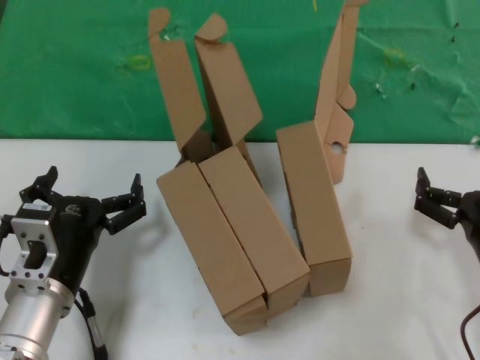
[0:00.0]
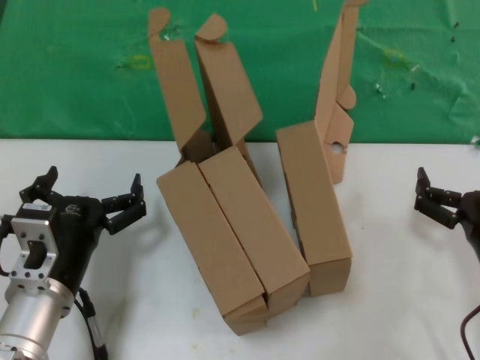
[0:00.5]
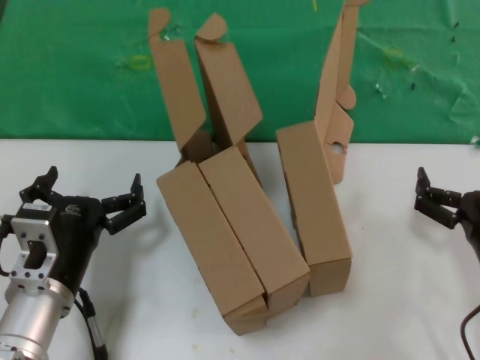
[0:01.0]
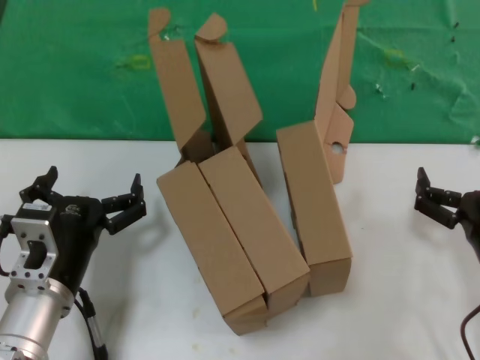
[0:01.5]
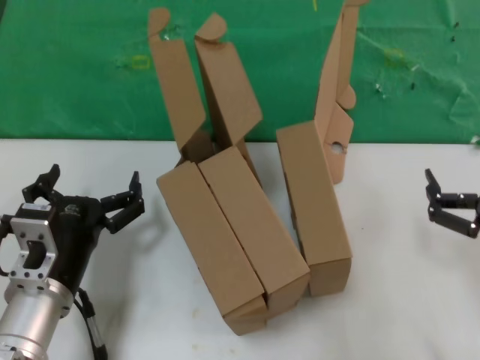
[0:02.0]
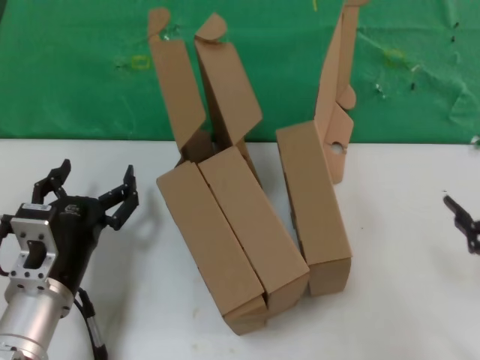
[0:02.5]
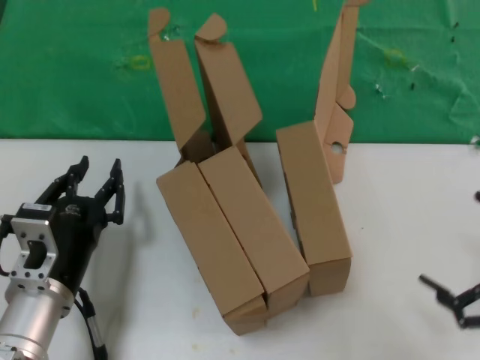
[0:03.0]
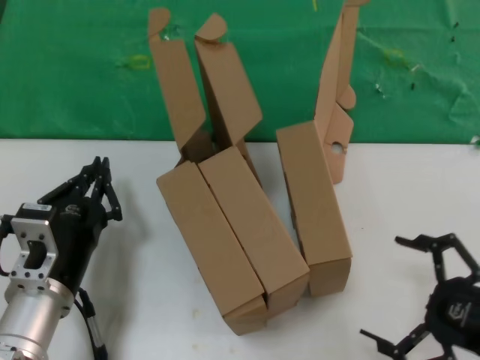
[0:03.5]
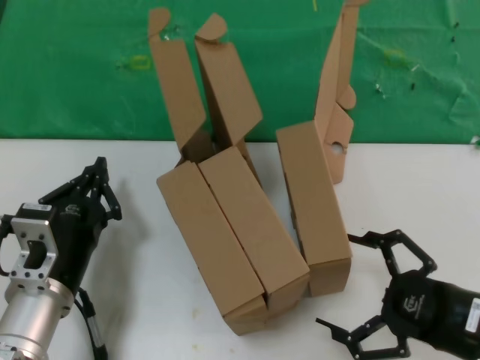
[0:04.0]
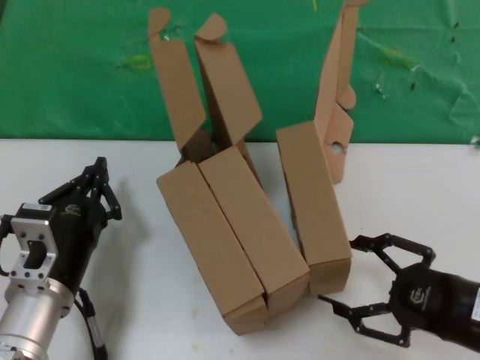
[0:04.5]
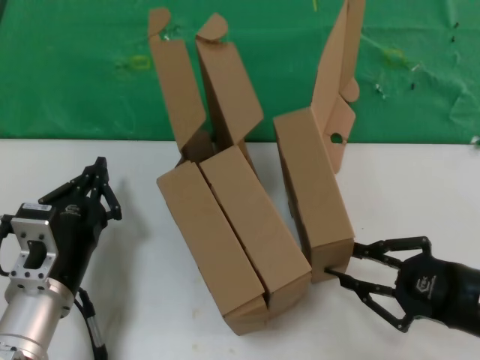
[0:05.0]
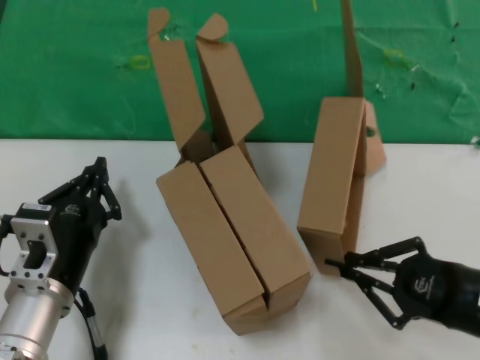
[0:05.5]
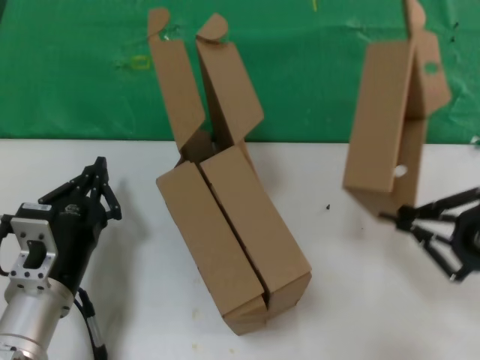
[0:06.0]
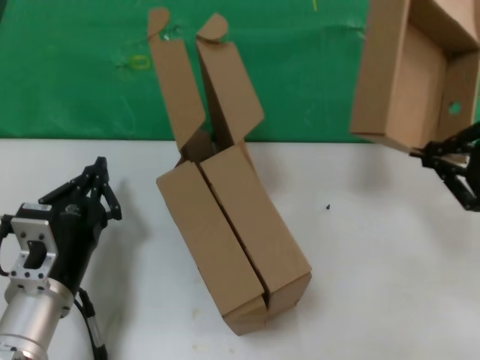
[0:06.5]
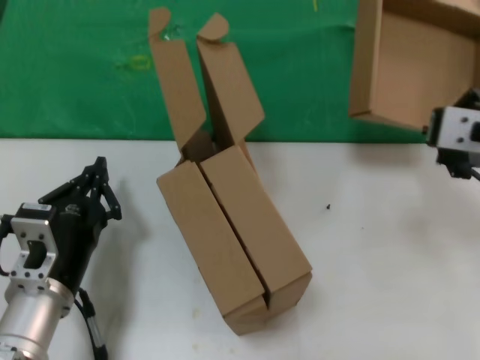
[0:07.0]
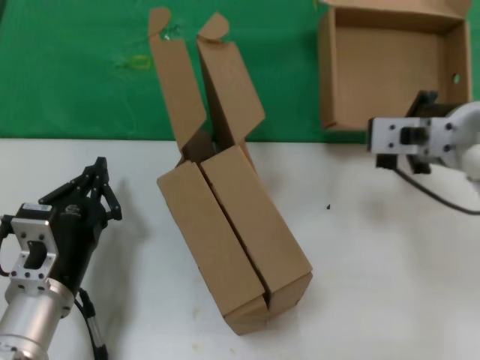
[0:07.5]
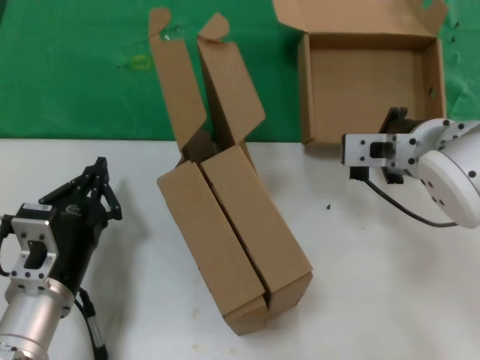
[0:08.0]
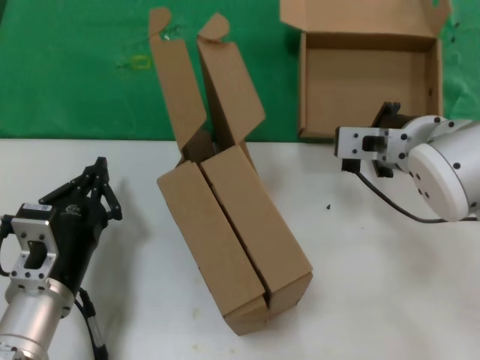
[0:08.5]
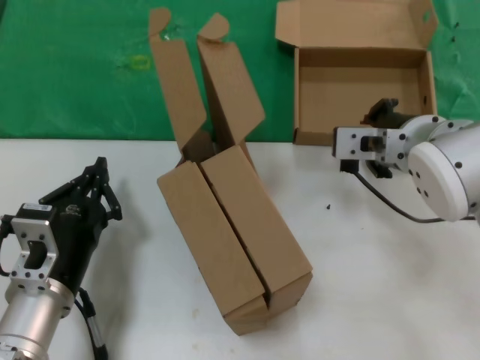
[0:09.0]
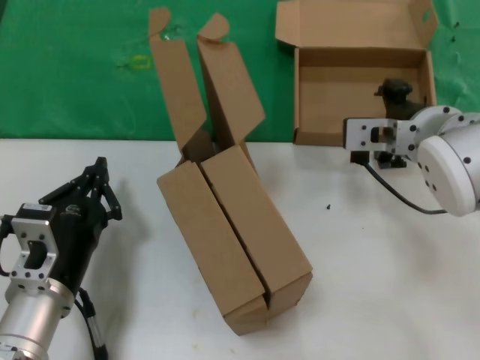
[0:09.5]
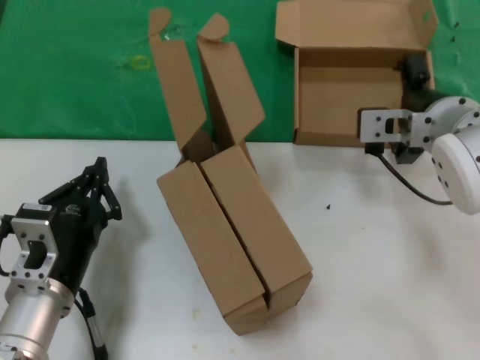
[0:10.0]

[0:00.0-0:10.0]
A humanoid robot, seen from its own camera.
Task of the whole recording: pick up the paper box and put it at the back.
Step, 0:00.0 to 0:05.0: Grasp the paper box.
0:00.0 to 0:02.0: The right hand changes place by some 5 cm.
0:02.0 to 0:04.0: The right hand reaches roughly 10 cm to the right, then returns.
0:04.0 to 0:06.0: The right hand heads upward, covering roughly 10 cm.
0:06.0 to 0:08.0: The right hand travels to the left and forward by some 25 cm.
0:08.0 to 0:10.0: The hands make only small movements.

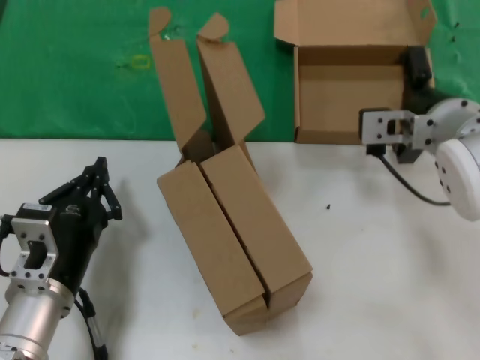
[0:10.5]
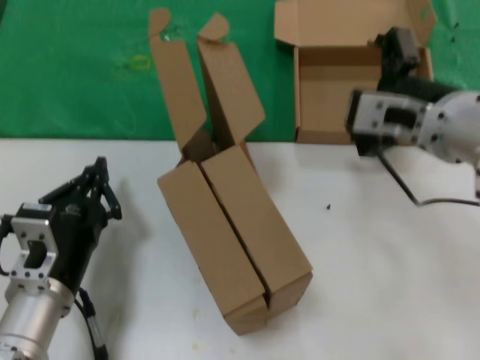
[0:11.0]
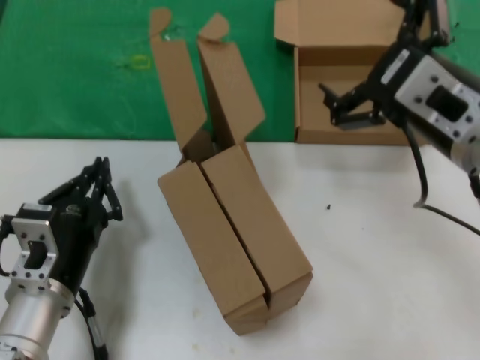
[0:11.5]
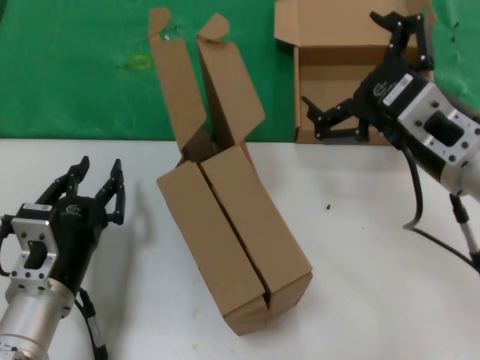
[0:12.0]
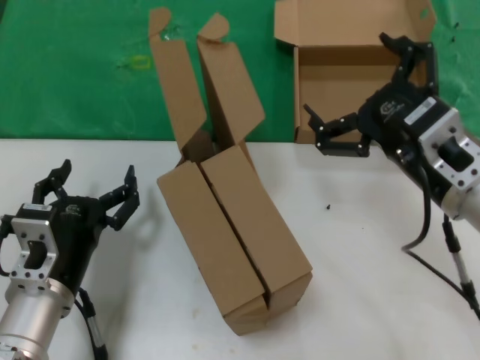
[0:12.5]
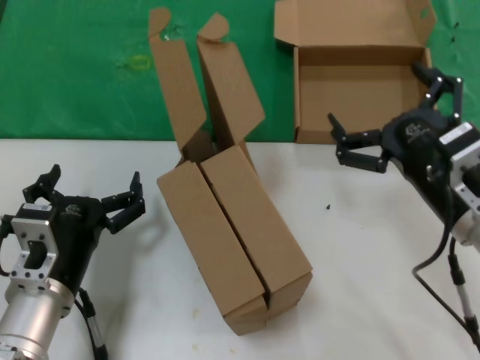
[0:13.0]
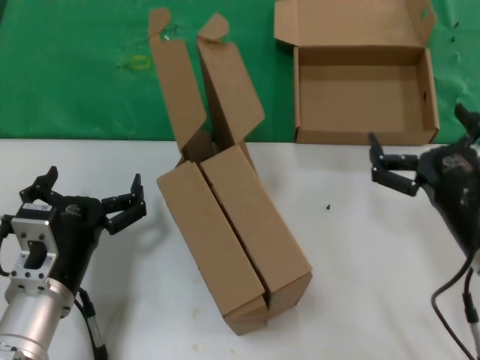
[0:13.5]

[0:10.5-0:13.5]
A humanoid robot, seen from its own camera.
Task of the whole recording: pick up the paper box and put it at the back.
0:10.5 to 0:12.0: The right hand moves backward, about 10 cm.
0:12.0 to 0:13.5: The right hand travels downward by approximately 15 cm.
